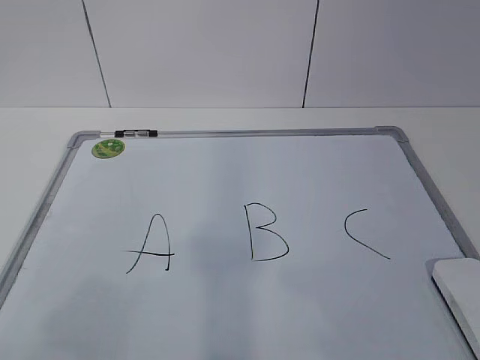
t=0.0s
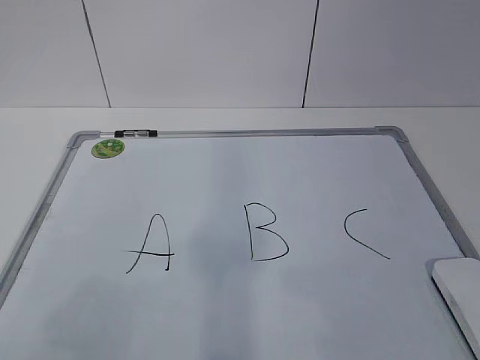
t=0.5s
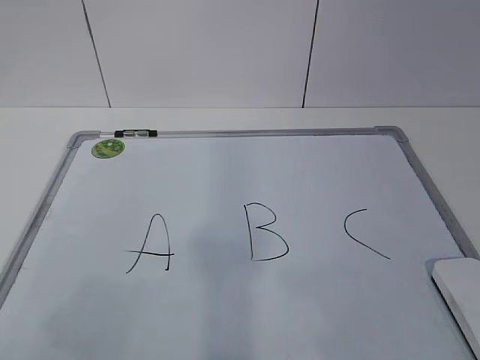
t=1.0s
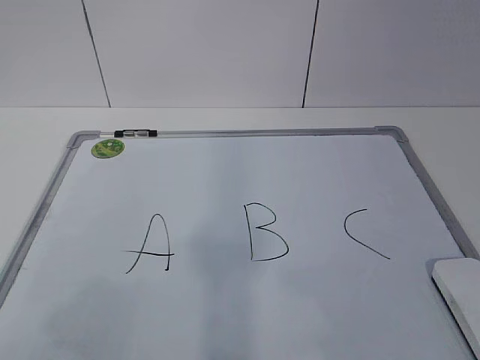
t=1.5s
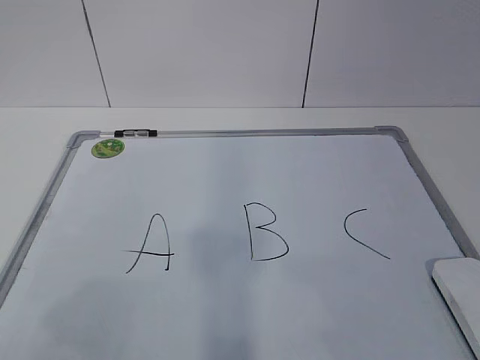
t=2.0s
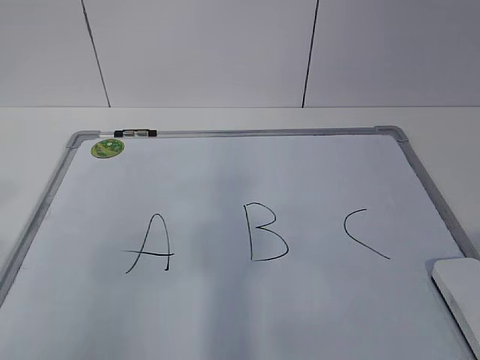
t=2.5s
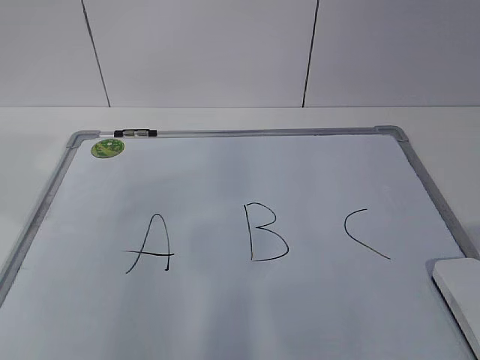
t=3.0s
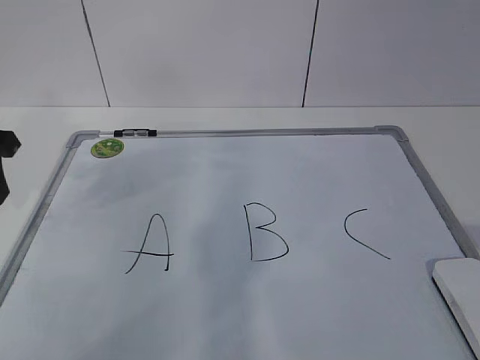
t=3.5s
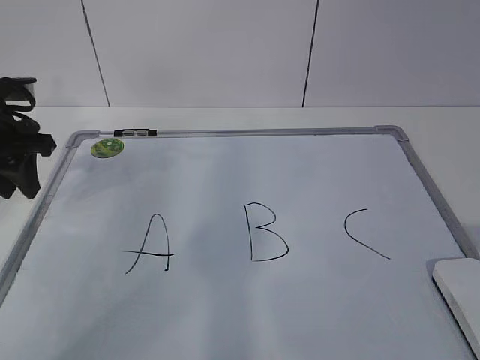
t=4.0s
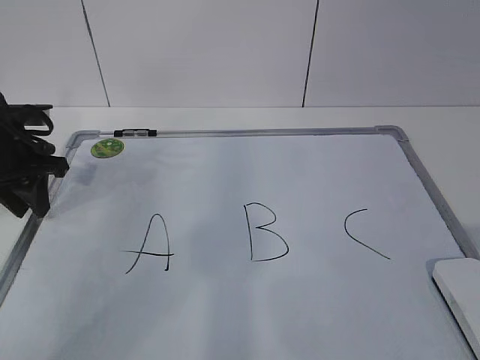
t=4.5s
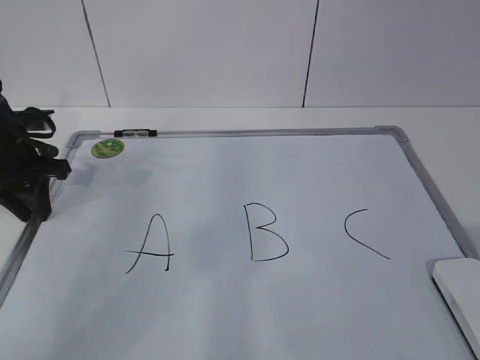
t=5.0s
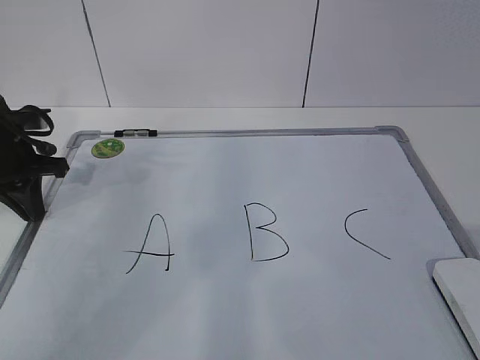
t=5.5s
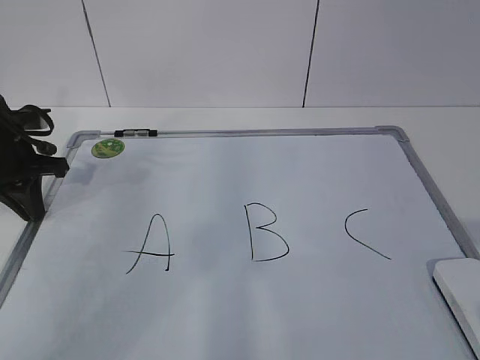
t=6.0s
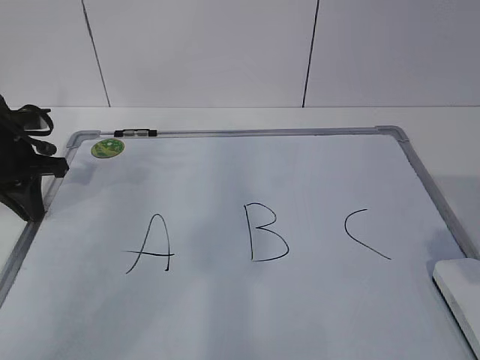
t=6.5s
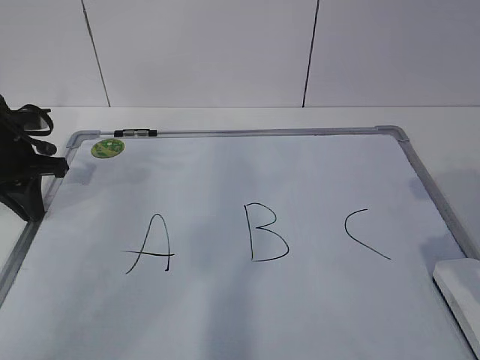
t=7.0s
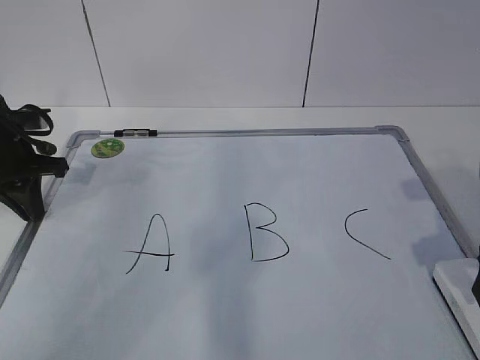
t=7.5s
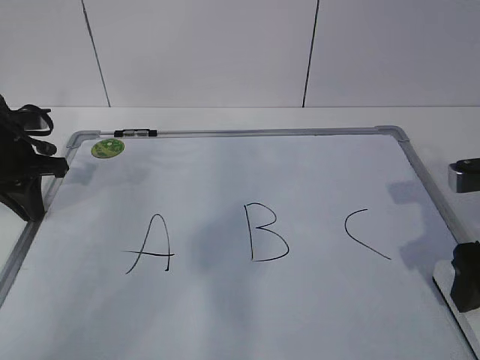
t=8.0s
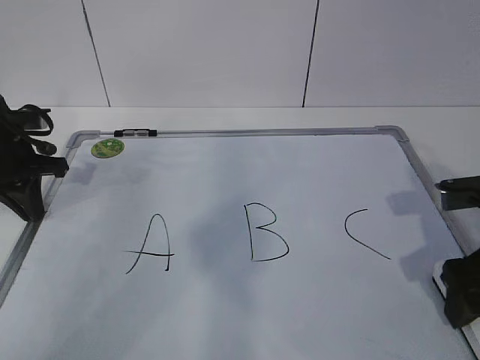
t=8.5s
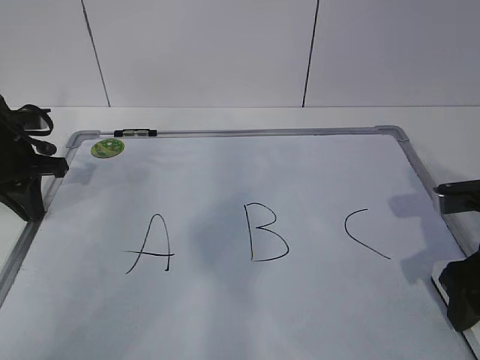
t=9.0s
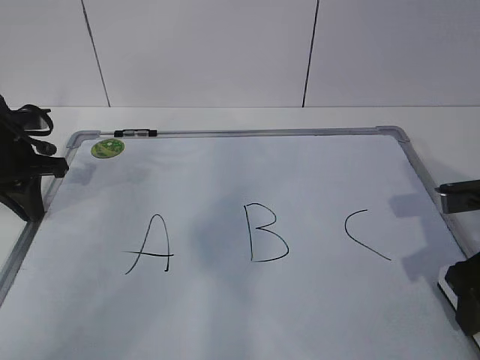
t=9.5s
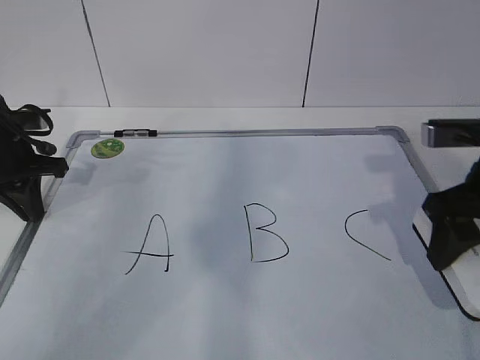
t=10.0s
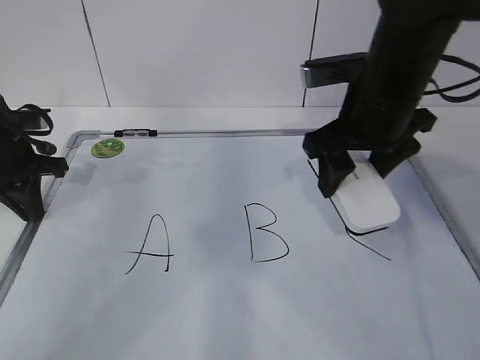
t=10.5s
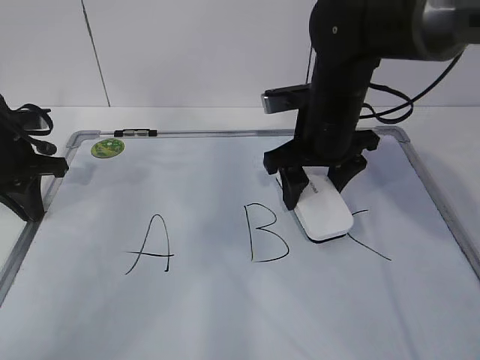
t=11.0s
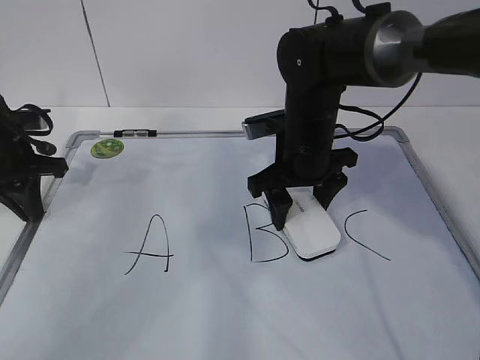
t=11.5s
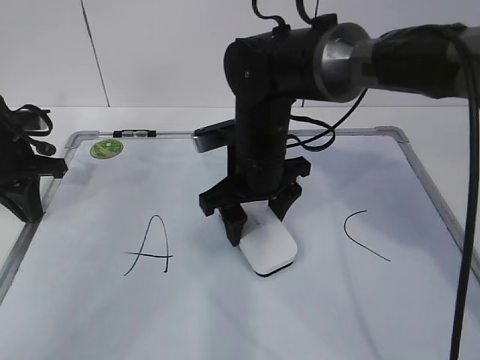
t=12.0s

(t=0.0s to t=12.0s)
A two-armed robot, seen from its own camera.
Task of the whole recording: pick up the eraser on the blackboard and erase the letter "B".
Step, t=0.0s - t=5.0s: Fixed the drawing board with the left gripper.
Step, t=5.5s - t=9.5s: pick up the blackboard eraser with the right gripper.
t=2.0s - t=4.0s: The left gripper travels forward by roughly 35 cm.
t=4.0s - t=6.0s: The left gripper moves downward, roughly 5 cm, and closes.
t=6.0s - t=8.0s: The right gripper moves forward, roughly 15 cm, and opens its fingers.
t=8.0s - t=10.0s: The right gripper closes up.
t=10.0s - t=12.0s: The right gripper travels to the left and forward by some 25 cm.

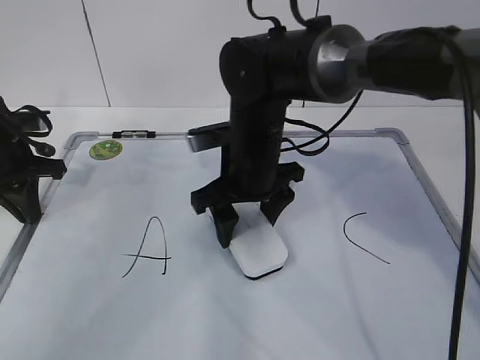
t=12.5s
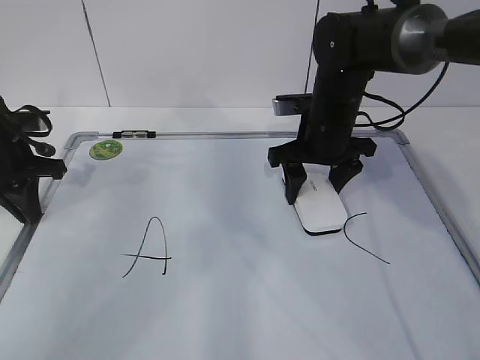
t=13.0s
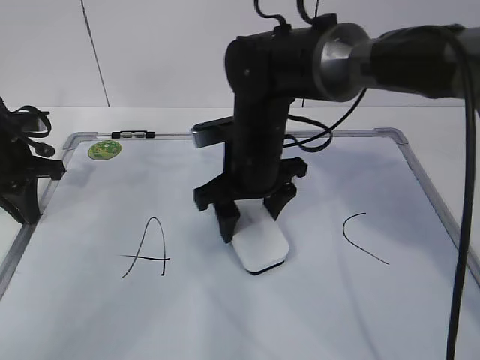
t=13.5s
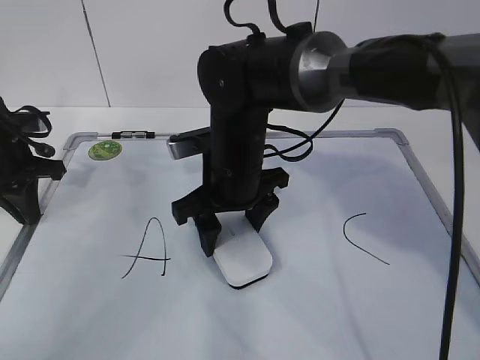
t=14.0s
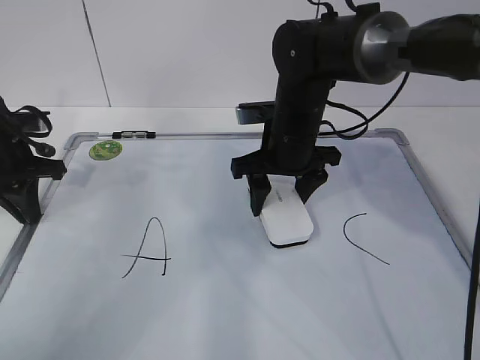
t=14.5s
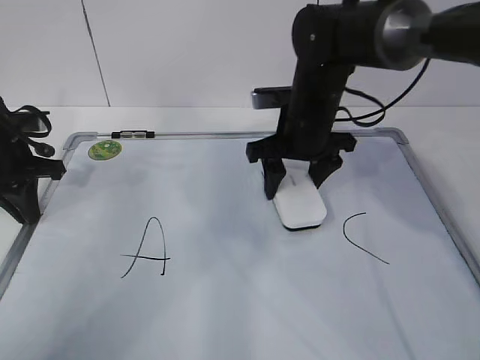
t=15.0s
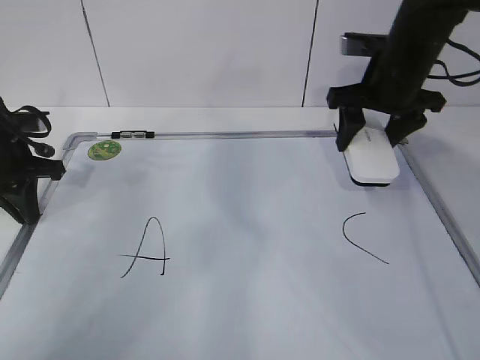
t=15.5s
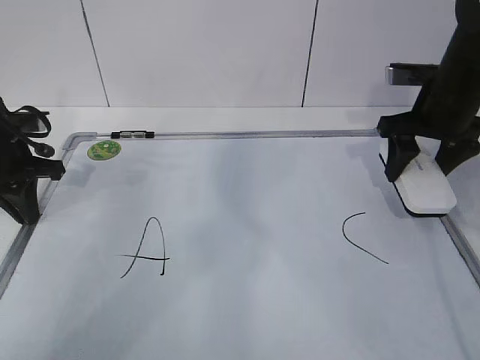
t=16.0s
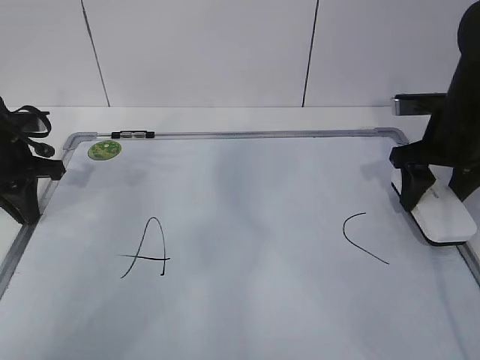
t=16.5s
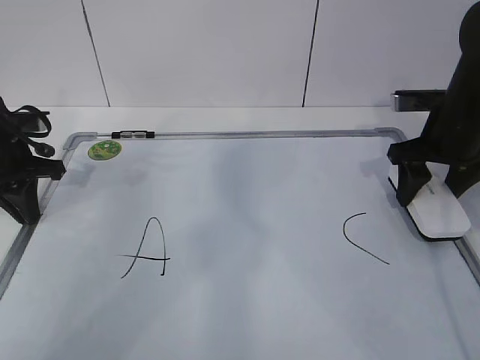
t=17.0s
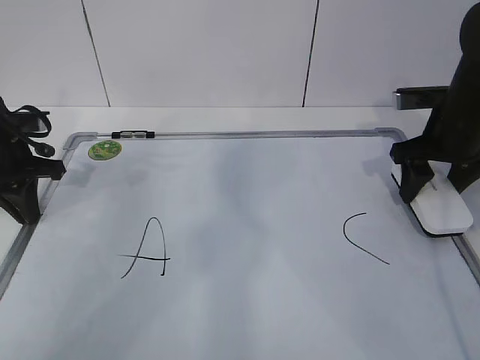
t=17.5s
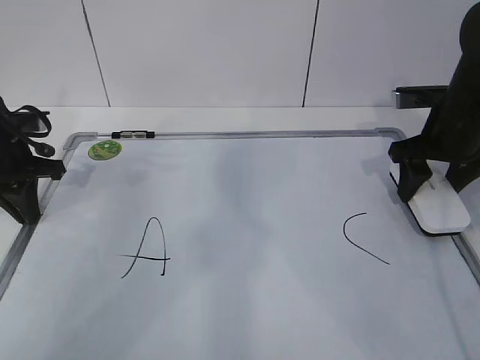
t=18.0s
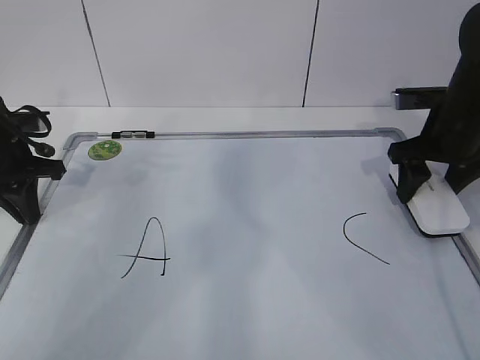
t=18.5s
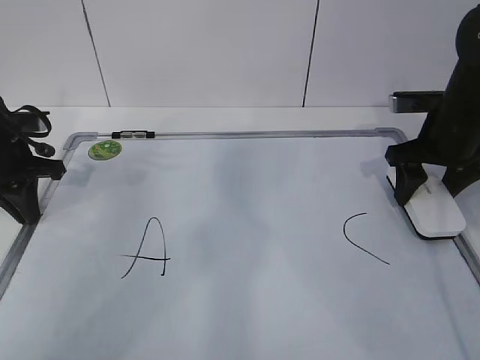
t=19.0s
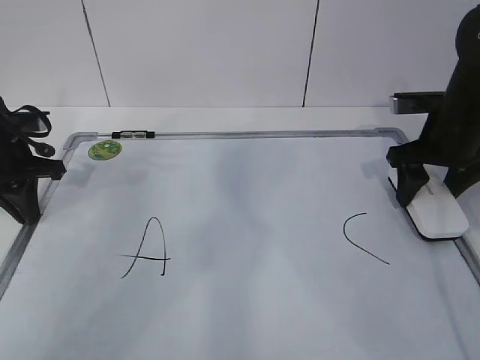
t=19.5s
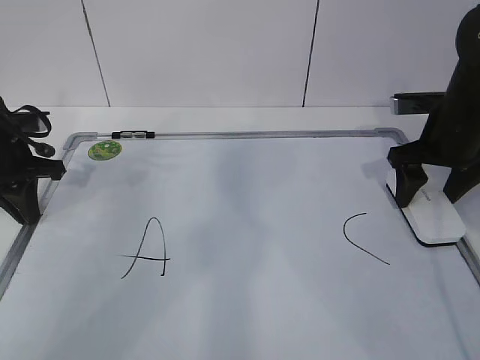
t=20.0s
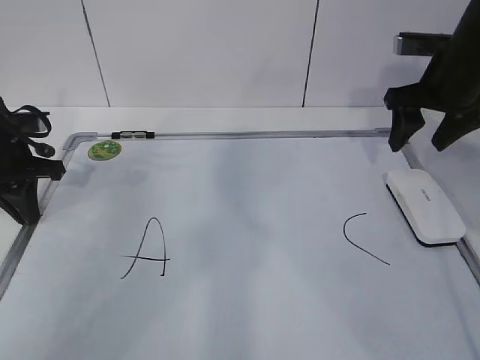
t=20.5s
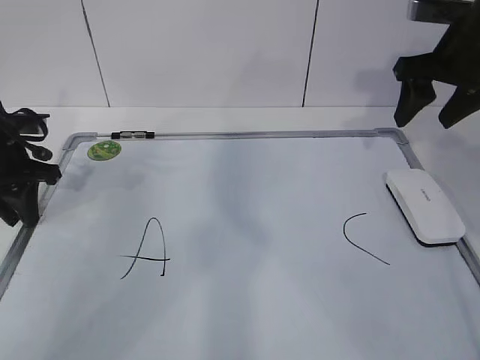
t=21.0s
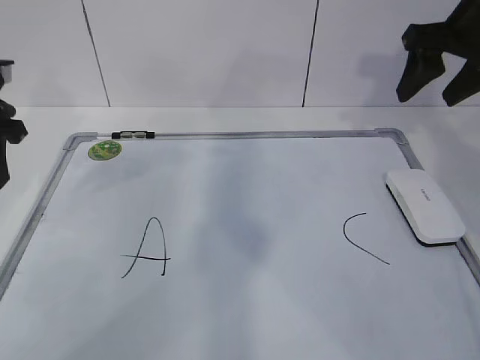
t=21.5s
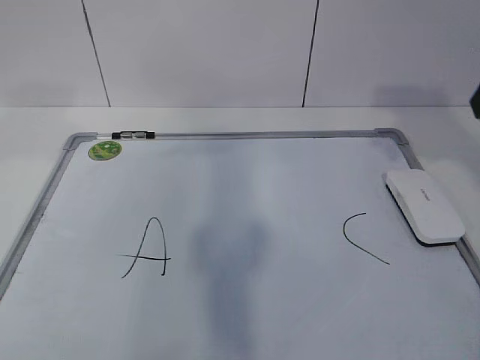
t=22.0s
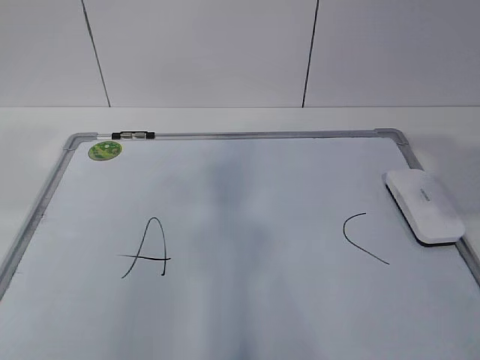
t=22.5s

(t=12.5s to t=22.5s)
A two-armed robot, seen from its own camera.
Task of the whole recording: pick up the eraser on the blackboard and erase the letter "B".
Step, t=12.5s - t=14.5s: Erase the letter B use the eraser with the right gripper.
Step, t=15.0s - t=20.0s: Place the blackboard eraser with the right gripper.
t=12.5s - t=14.5s: The right gripper moves left and right over roughly 10 cm, changing direction 2 times.
t=14.5s - t=16.5s: The right gripper is displaced to the right by about 20 cm.
t=16.5s - t=18.5s: The two grippers keep their place.
t=18.5s - t=20.5s: The right gripper moves upward, approximately 5 cm, and opens, then closes again.
t=20.5s - t=22.5s: Both grippers travel together backward and upward, about 30 cm. The left gripper opens its fingers.

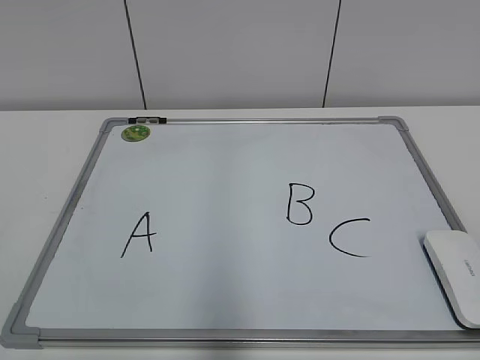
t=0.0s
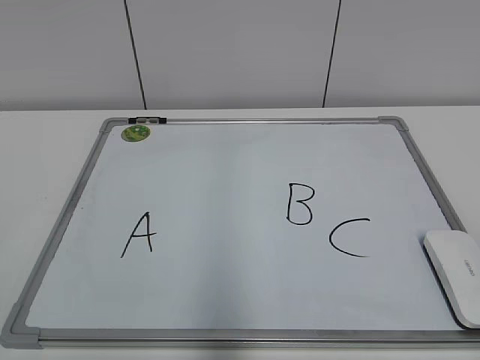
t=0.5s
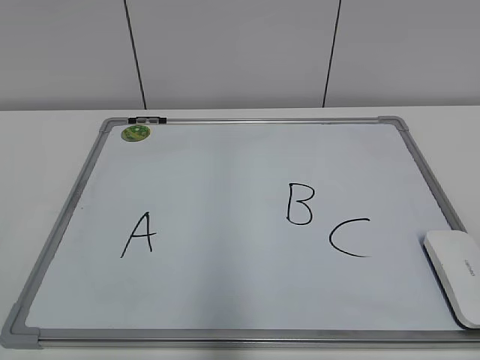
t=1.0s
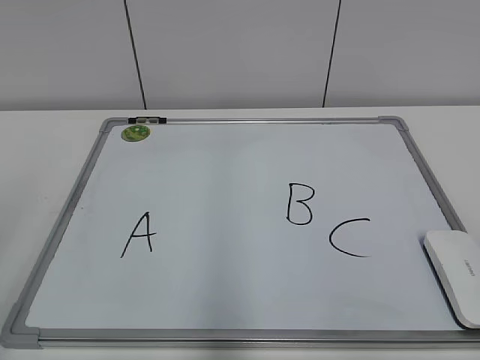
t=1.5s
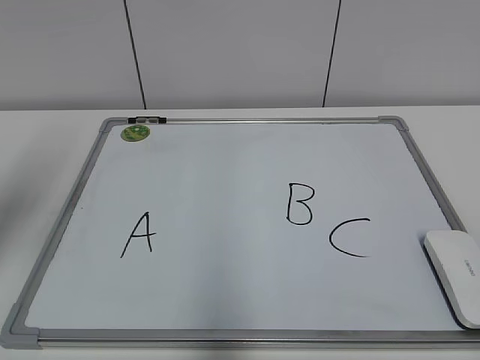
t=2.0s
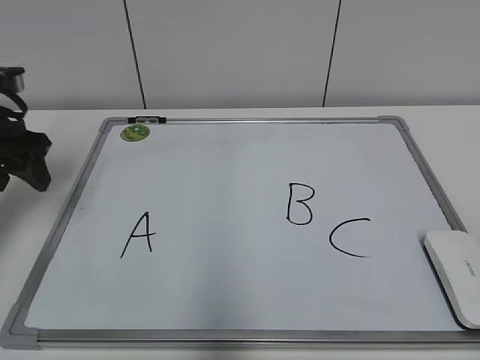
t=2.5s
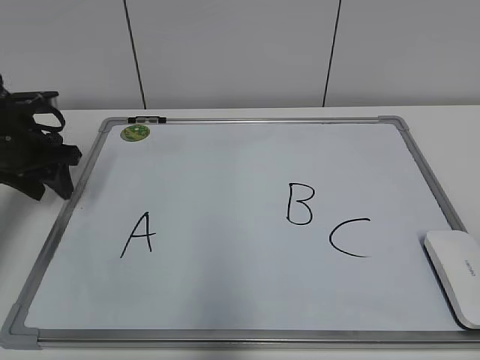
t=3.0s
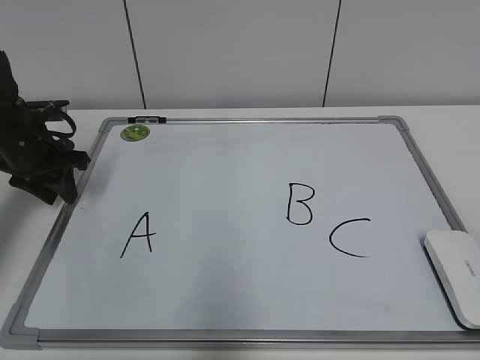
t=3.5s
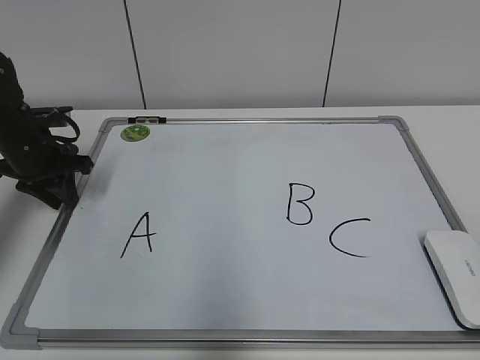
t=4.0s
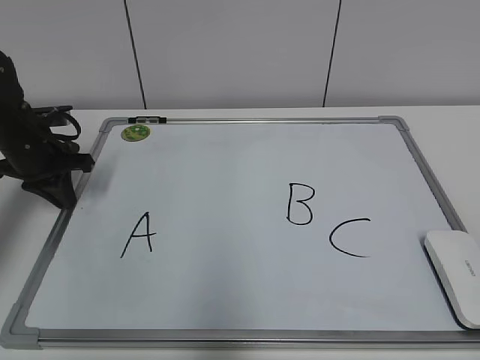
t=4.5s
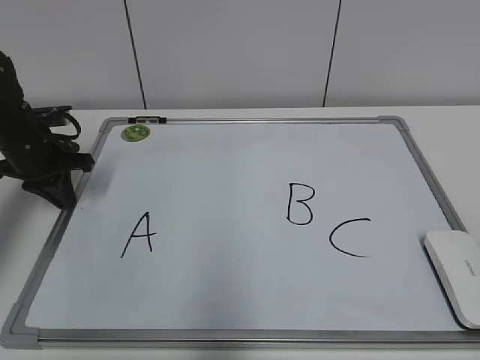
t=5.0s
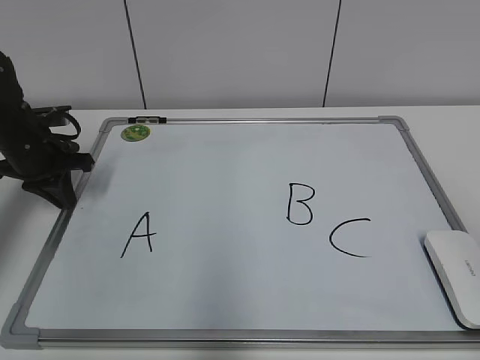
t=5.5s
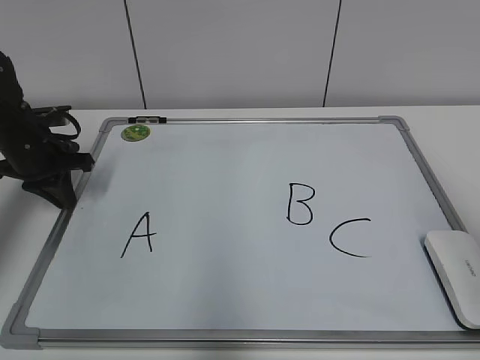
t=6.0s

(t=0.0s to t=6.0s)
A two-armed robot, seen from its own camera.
Task of the whole recording: pick up the eraser on the blackboard and erase the letter "B".
Step, t=0.0s - t=4.0s: Hold the drawing board steady with your left hand.
t=2.0s - t=4.0s: The left gripper moves downward and forward, about 25 cm, and closes its fingers.
